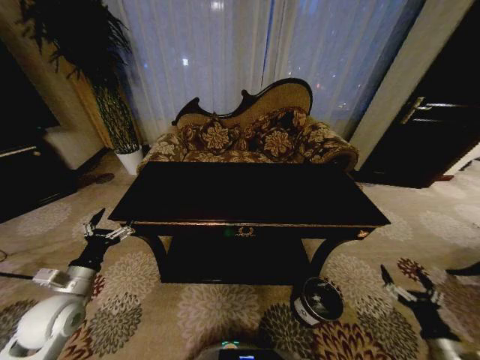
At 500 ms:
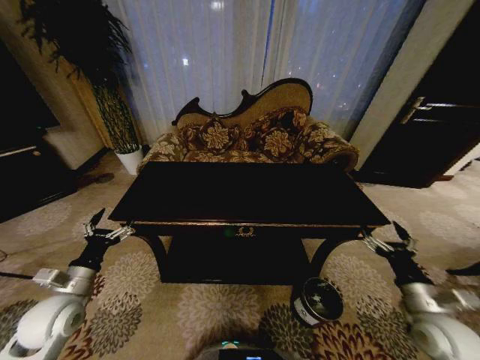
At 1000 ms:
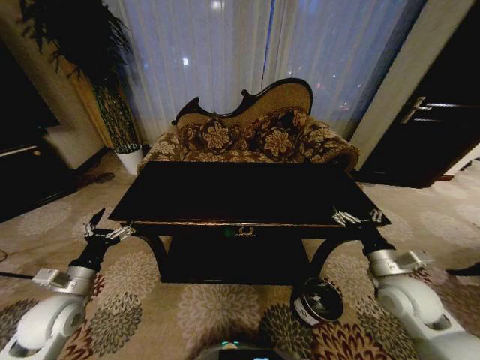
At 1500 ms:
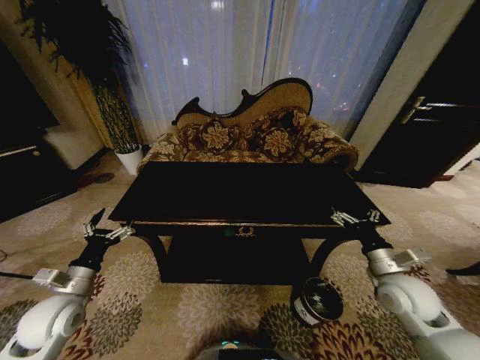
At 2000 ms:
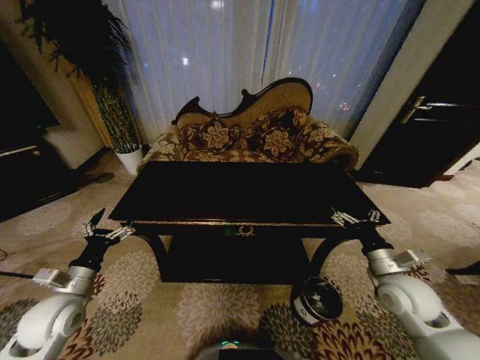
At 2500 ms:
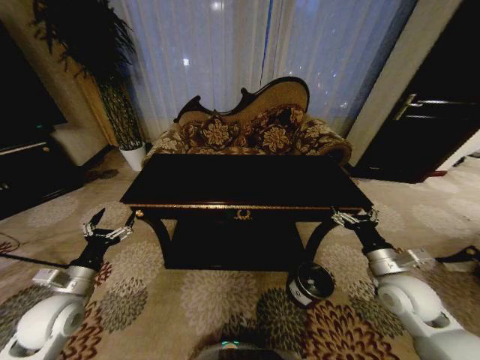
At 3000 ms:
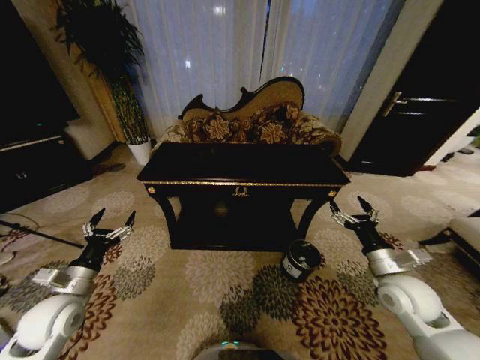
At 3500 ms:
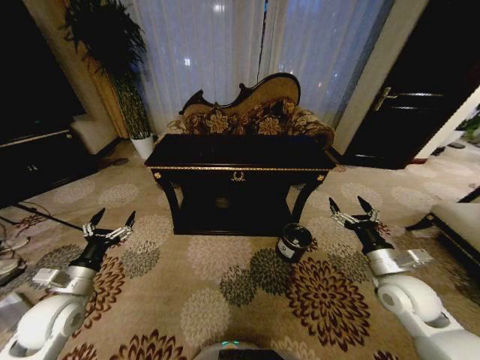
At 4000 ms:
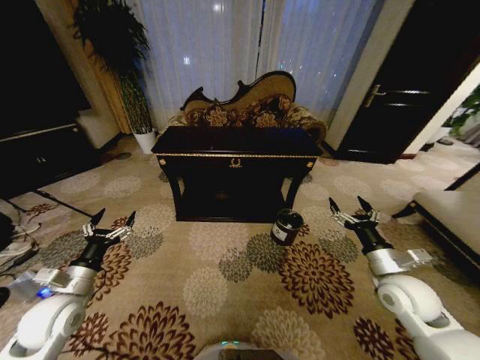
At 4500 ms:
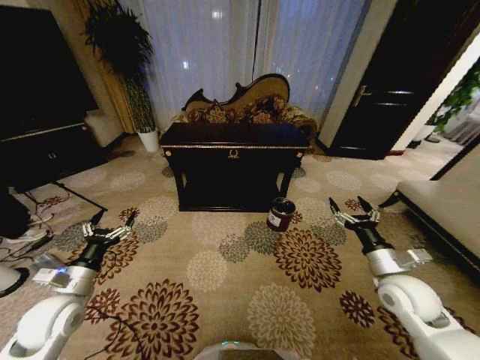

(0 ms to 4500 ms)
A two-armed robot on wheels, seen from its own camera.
Task of the whole recording: Move to the front of the table and place the trash on the table into the trash bin.
0 ms - 2000 ms: The right gripper travels forward, upward and to the left by some 25 cm.

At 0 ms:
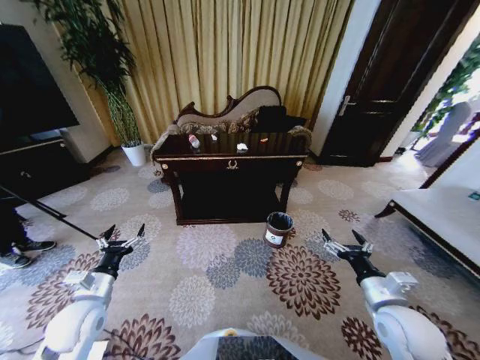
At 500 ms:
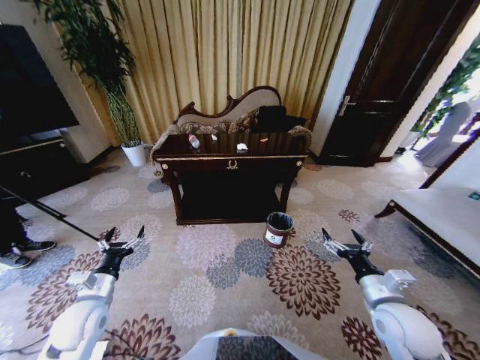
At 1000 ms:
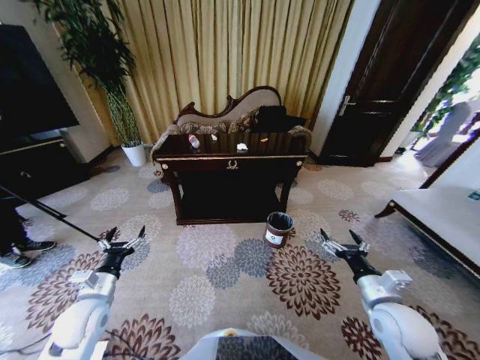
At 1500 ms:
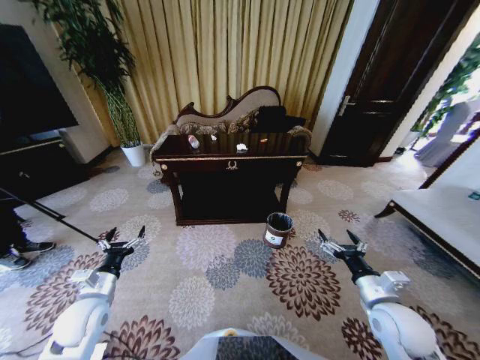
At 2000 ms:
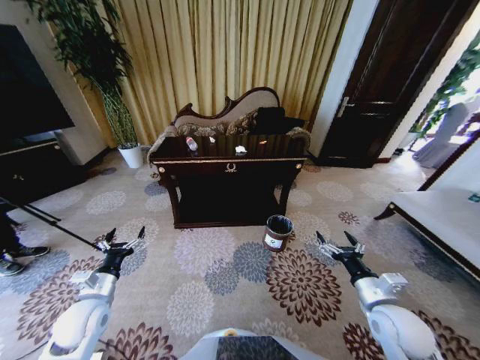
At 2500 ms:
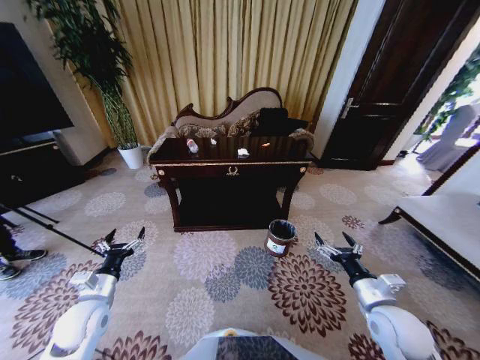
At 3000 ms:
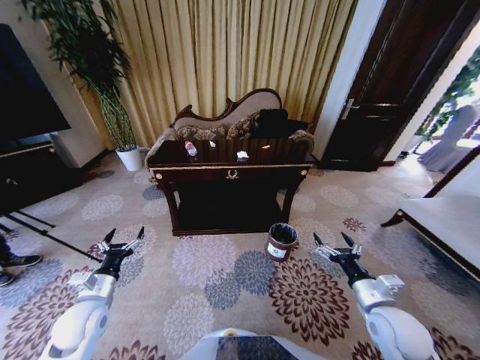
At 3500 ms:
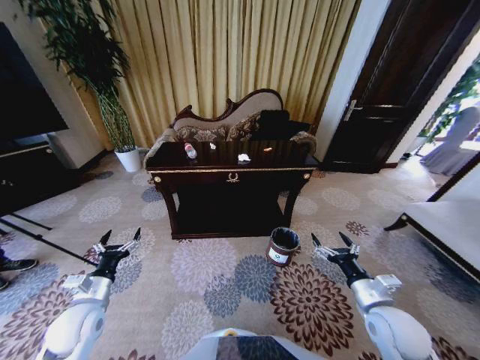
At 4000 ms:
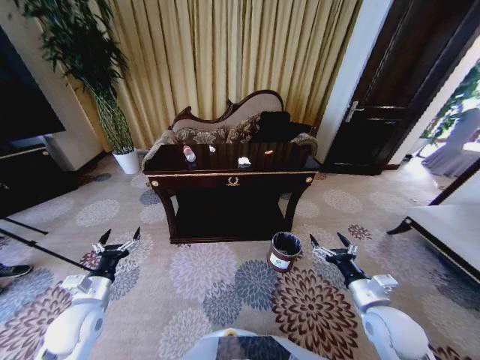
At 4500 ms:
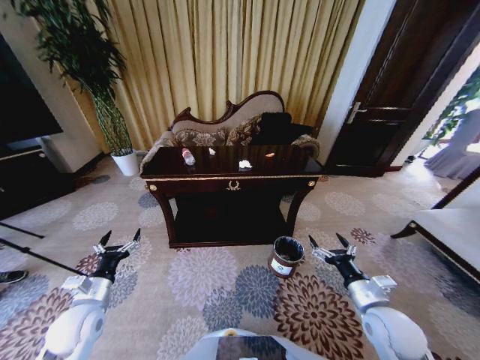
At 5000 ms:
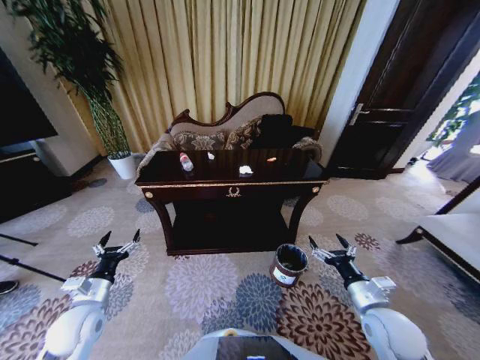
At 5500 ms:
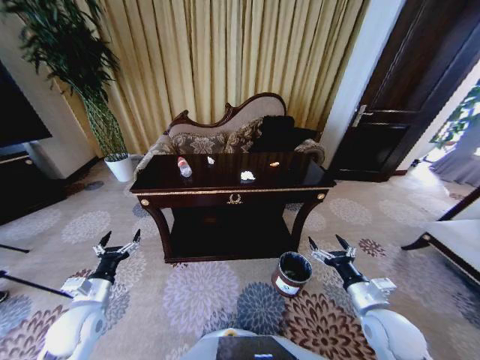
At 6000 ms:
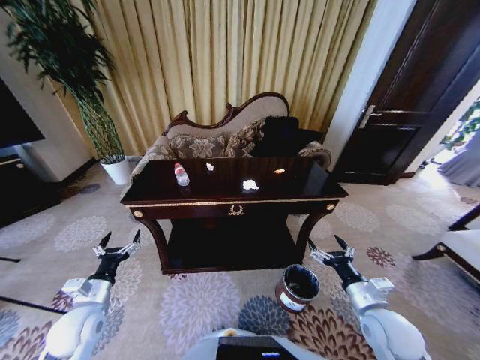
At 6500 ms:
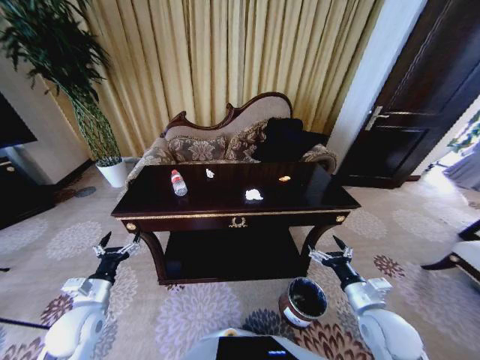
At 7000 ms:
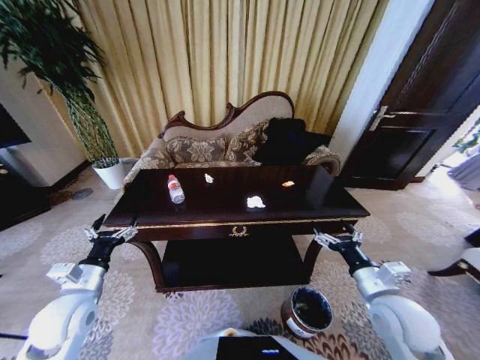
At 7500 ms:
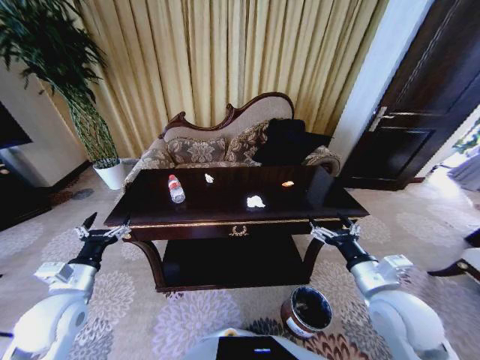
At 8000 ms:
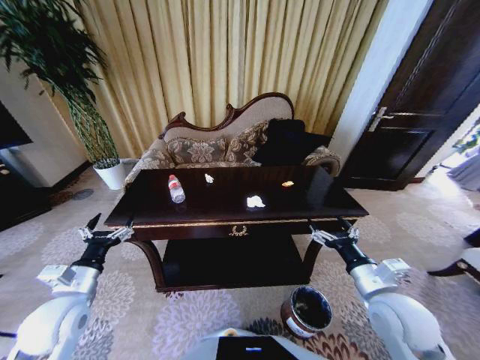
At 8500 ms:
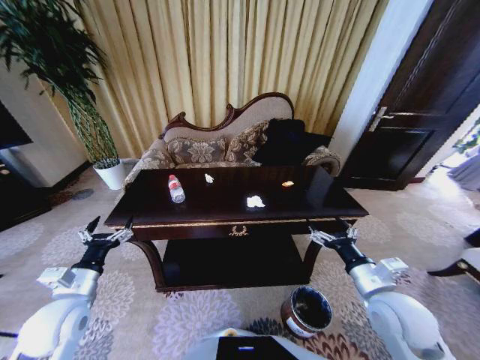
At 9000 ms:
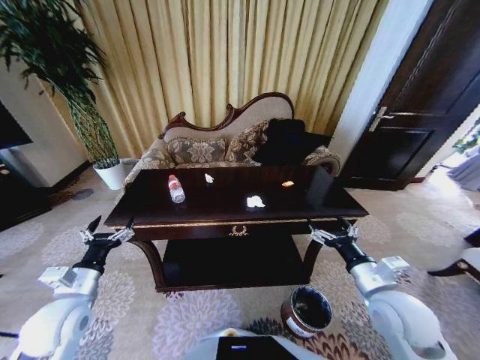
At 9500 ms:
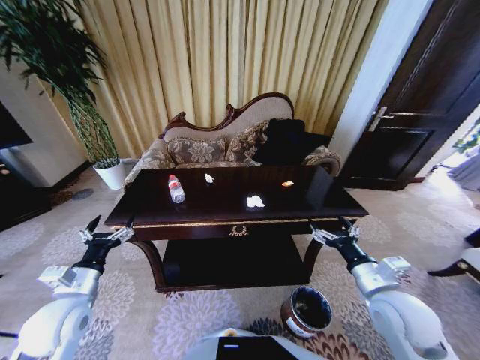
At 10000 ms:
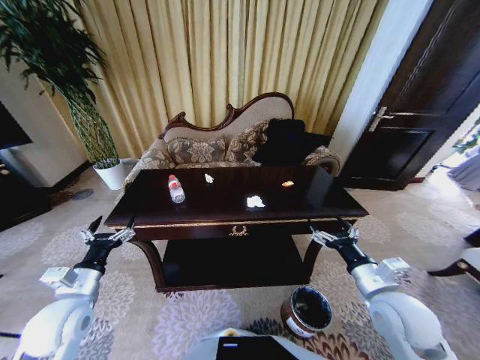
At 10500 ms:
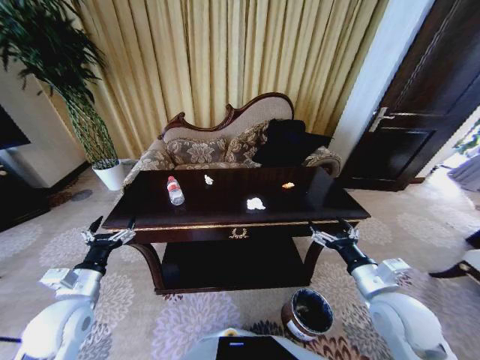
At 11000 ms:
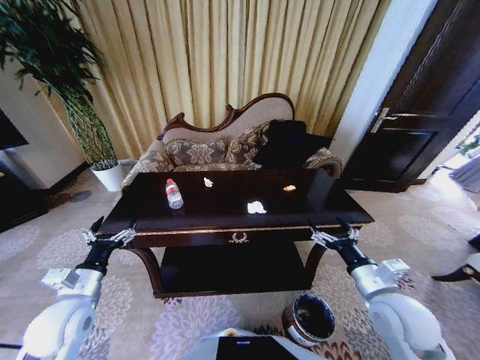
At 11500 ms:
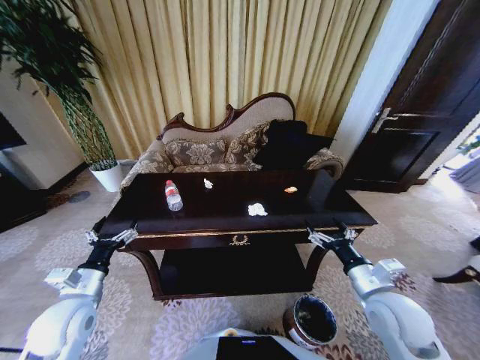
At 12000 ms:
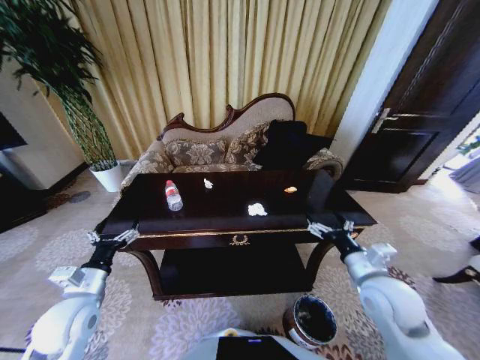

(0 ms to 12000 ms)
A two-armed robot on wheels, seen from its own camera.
Task of the whole recording: Move to the front of the table and place the trash on the table into the trash bin.
6000 ms - 8000 ms: Both grippers travel together upward, about 10 cm.
8000 ms - 10000 ms: Neither gripper changes place.

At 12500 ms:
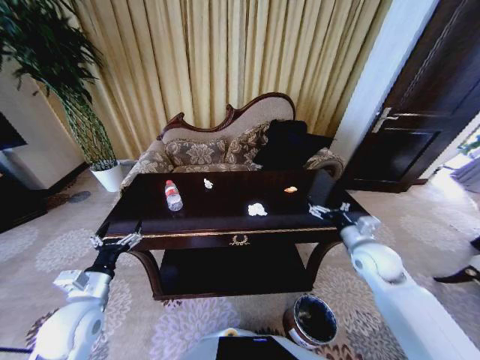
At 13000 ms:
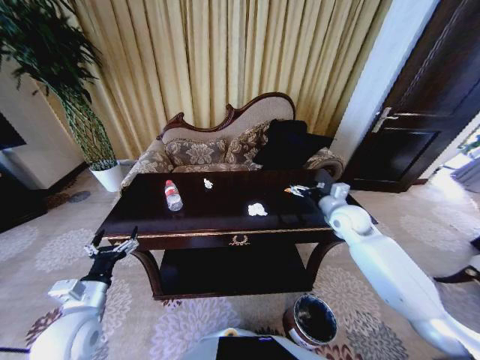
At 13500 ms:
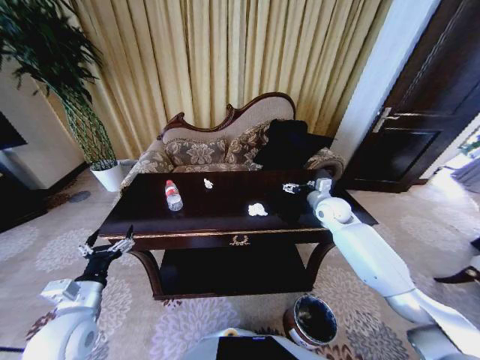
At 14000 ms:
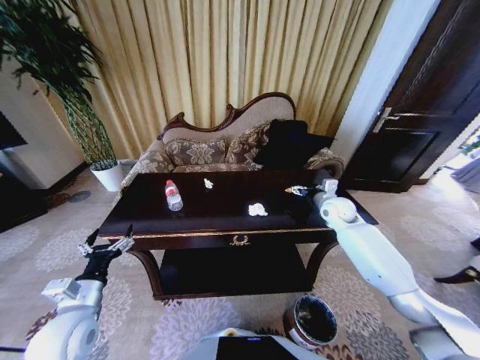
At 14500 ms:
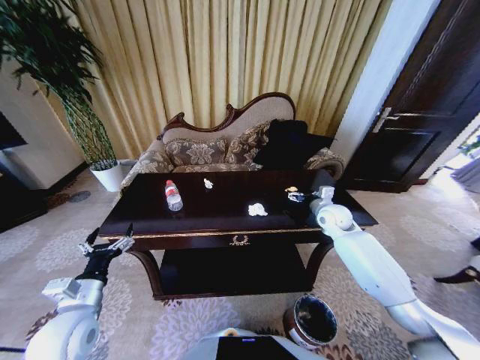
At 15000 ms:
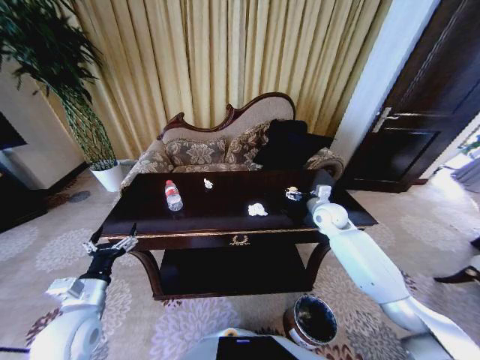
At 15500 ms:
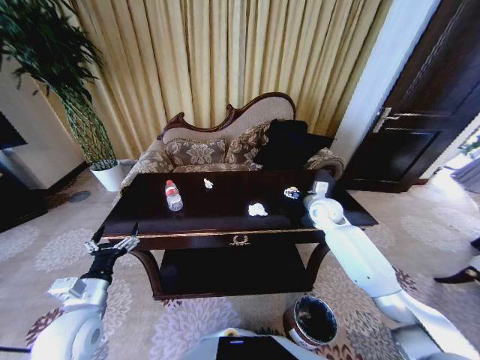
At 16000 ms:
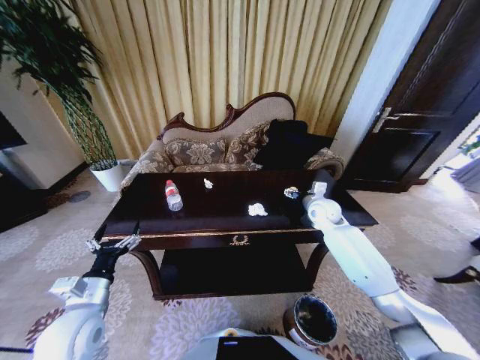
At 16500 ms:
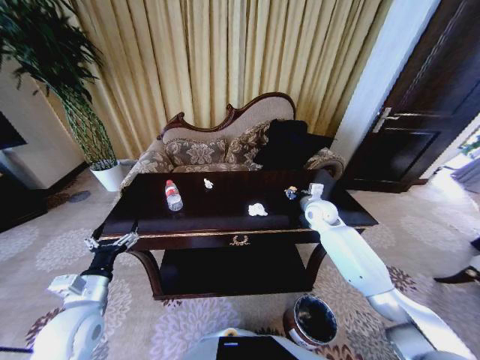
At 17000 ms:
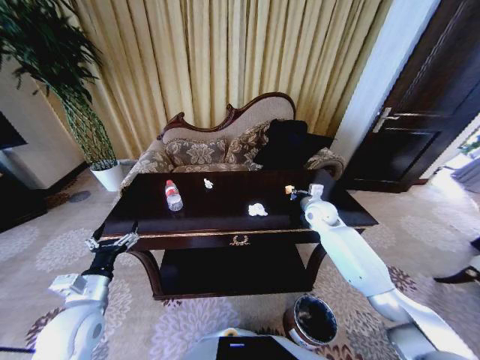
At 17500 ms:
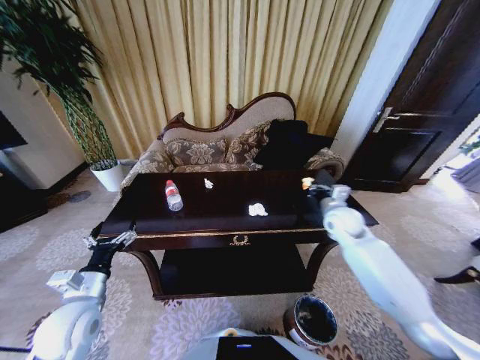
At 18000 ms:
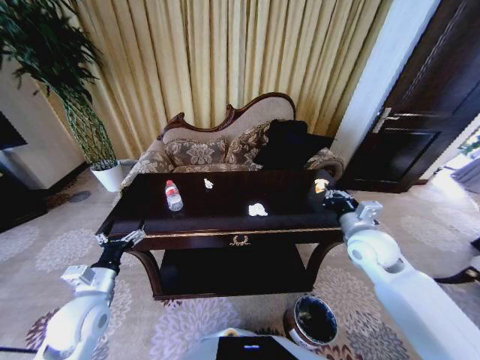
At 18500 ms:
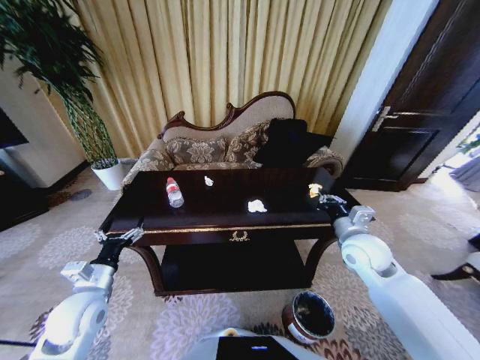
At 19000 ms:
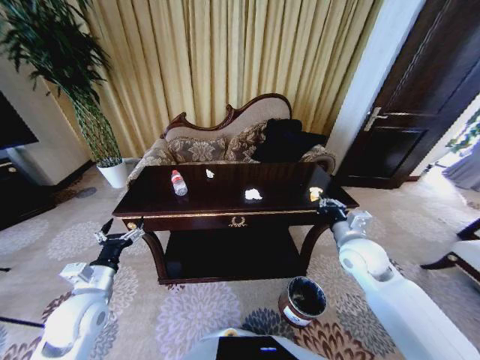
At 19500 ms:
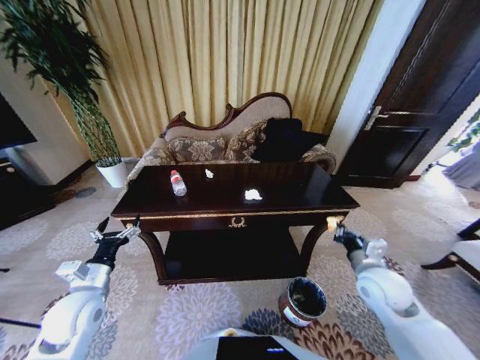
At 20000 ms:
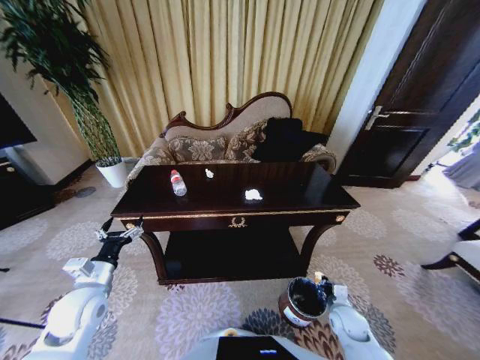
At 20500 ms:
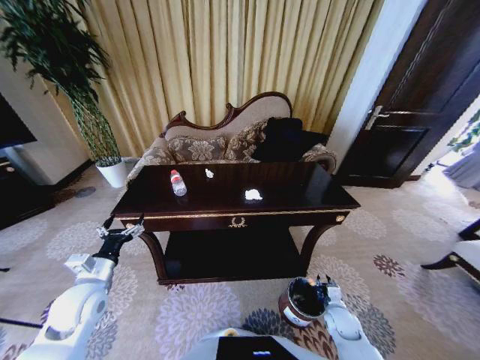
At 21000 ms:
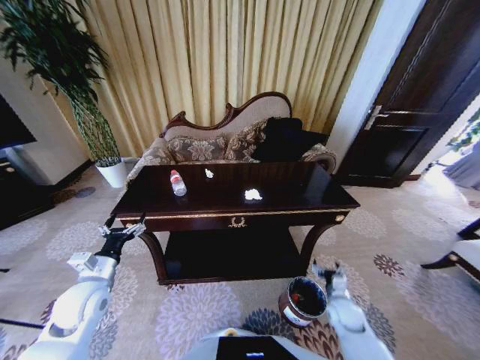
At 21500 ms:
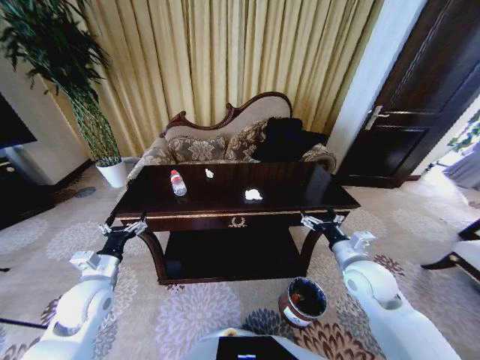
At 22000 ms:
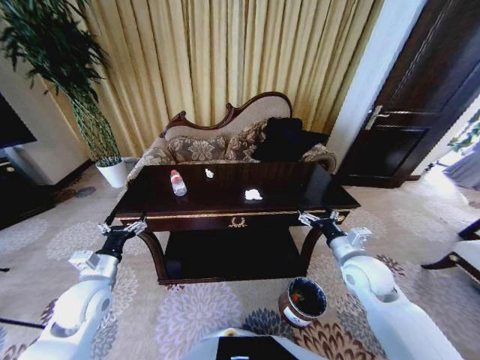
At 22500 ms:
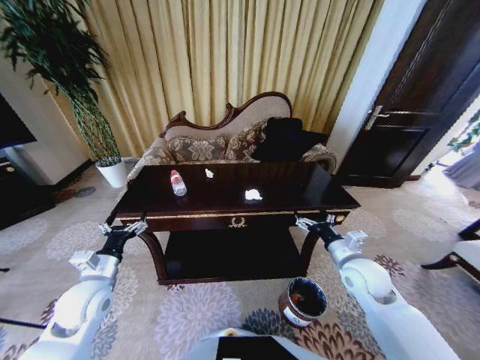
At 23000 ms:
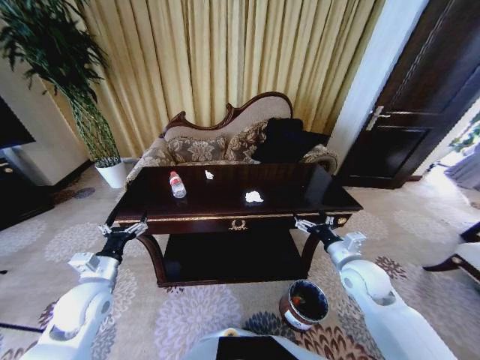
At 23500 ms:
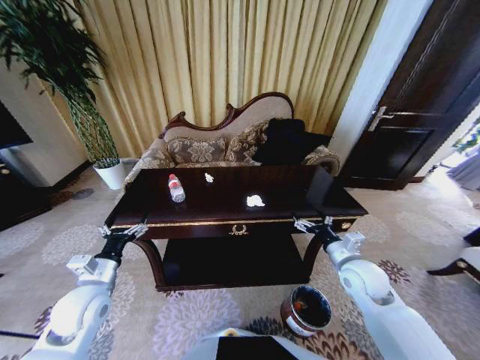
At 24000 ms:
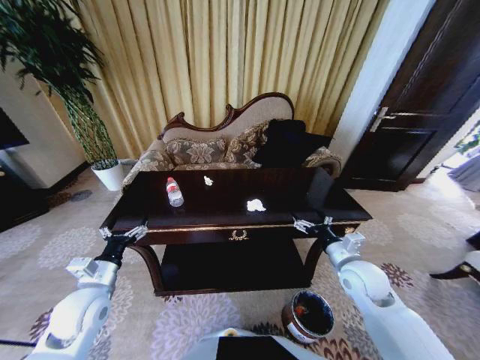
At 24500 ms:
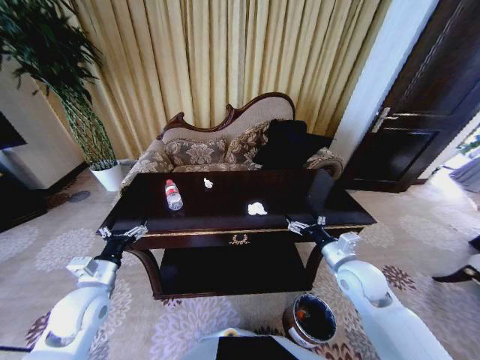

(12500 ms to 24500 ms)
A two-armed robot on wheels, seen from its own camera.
Task of the whole recording: Move to the front of the table and place the trash on the table into the trash bin.
12500 ms - 14500 ms: The right gripper goes some 15 cm forward.
14500 ms - 16500 ms: The right gripper closes.
16500 ms - 18500 ms: The right gripper moves backward, about 15 cm, and closes.
18500 ms - 20500 ms: The right gripper moves downward, about 30 cm.
20500 ms - 22500 ms: The right gripper is displaced upward by some 25 cm, and opens its fingers.
